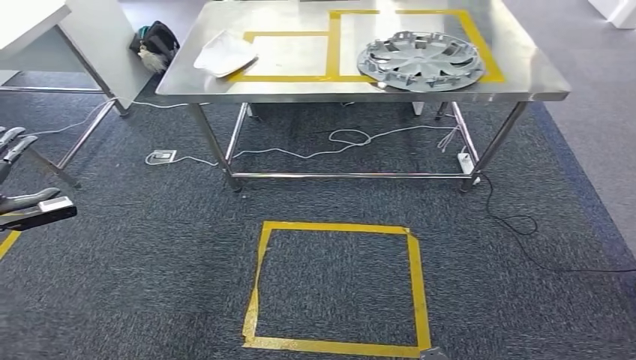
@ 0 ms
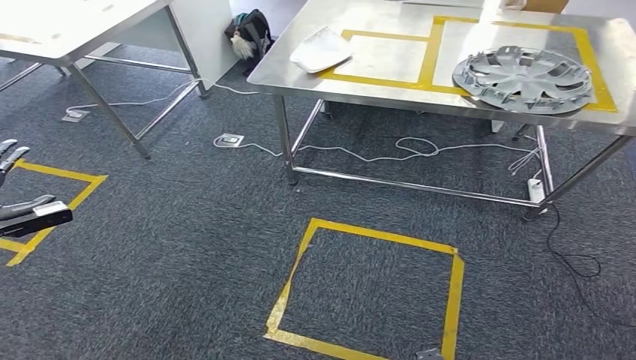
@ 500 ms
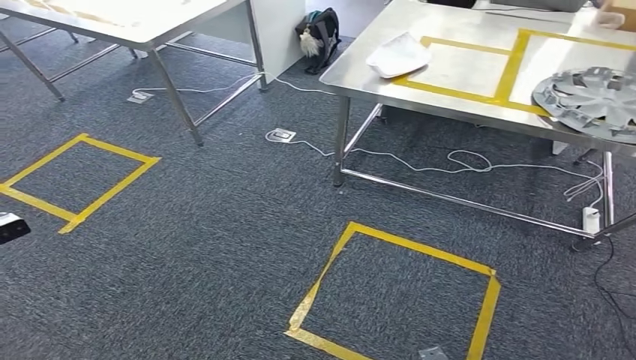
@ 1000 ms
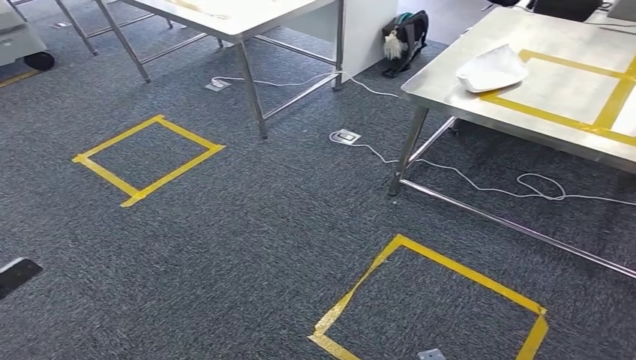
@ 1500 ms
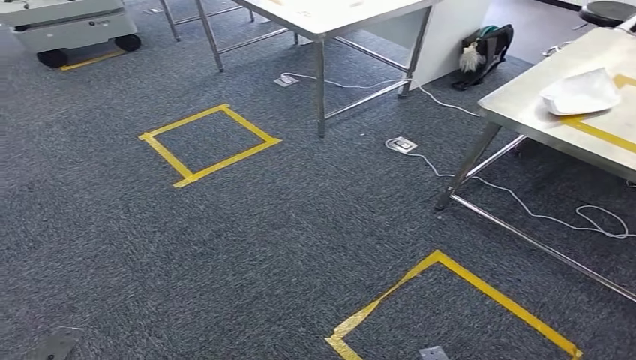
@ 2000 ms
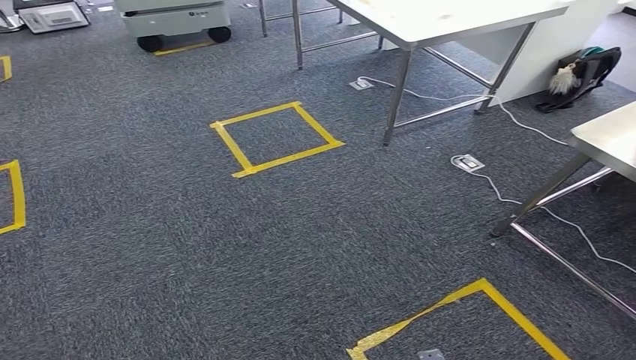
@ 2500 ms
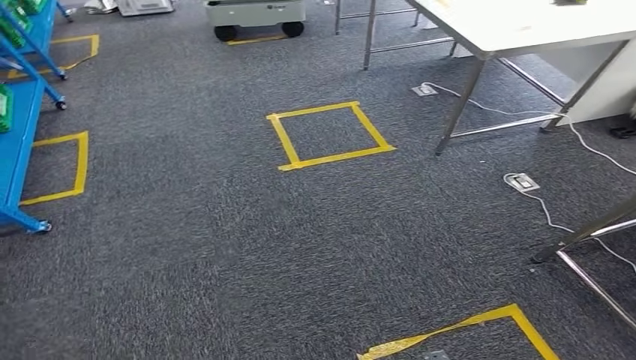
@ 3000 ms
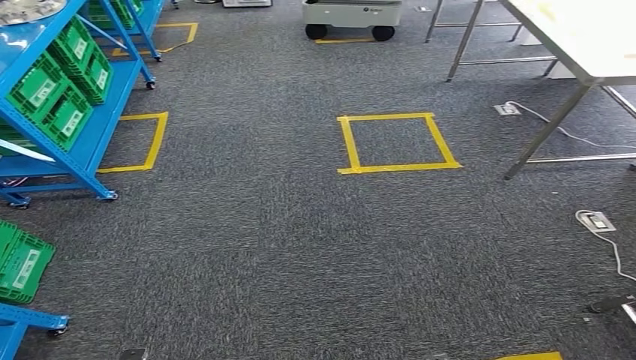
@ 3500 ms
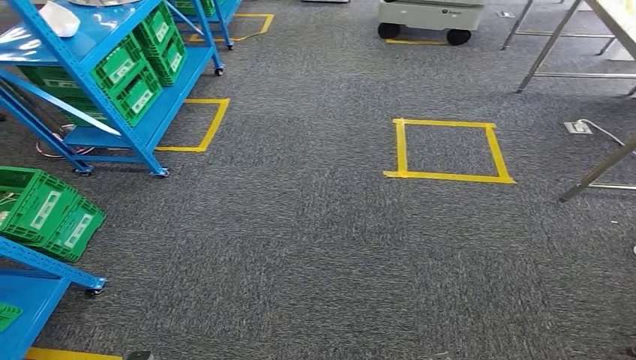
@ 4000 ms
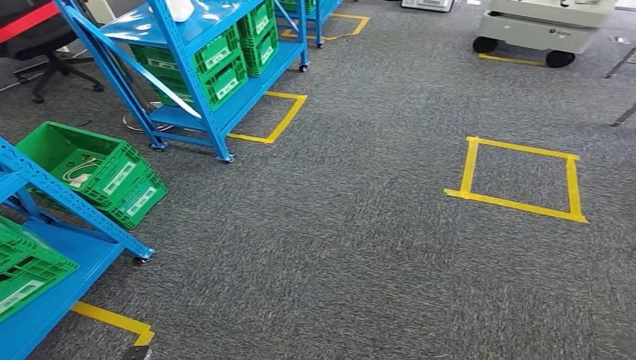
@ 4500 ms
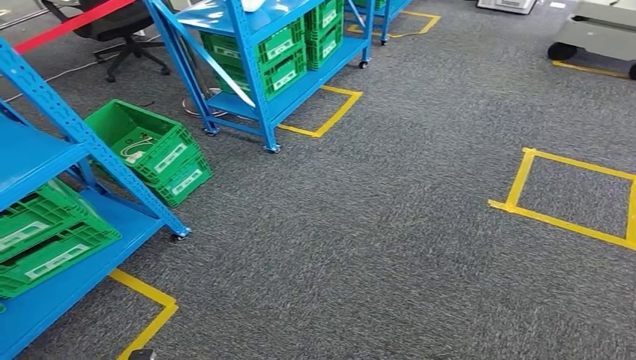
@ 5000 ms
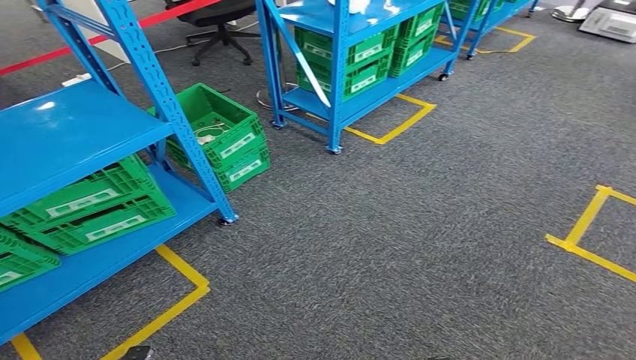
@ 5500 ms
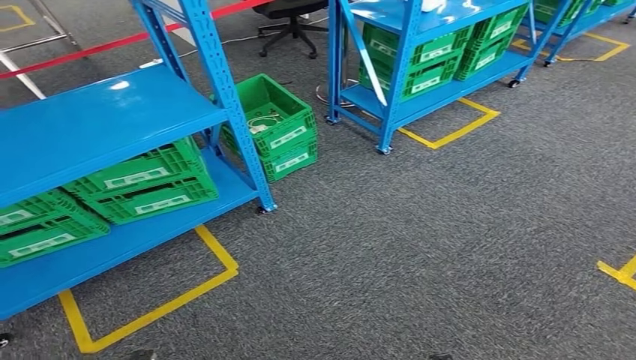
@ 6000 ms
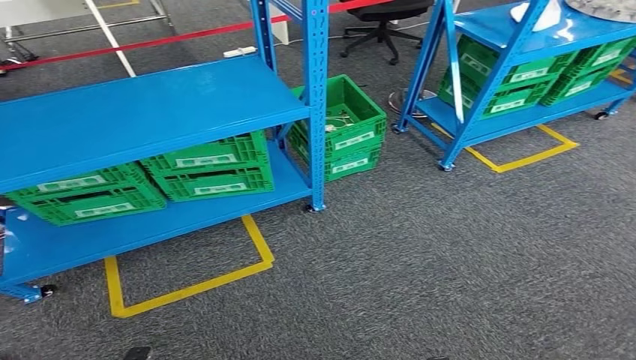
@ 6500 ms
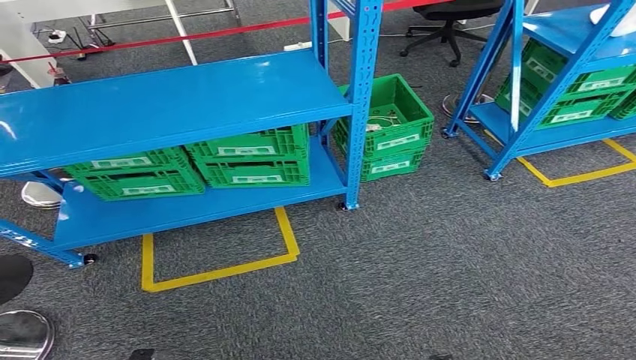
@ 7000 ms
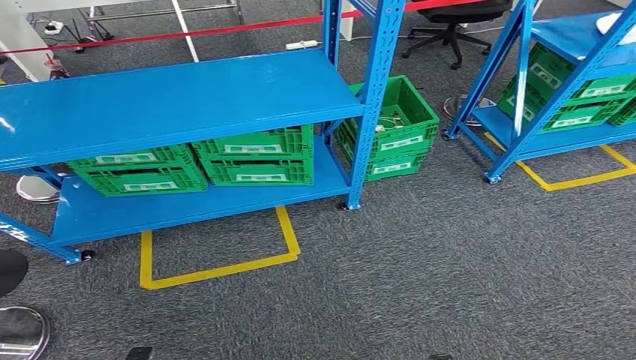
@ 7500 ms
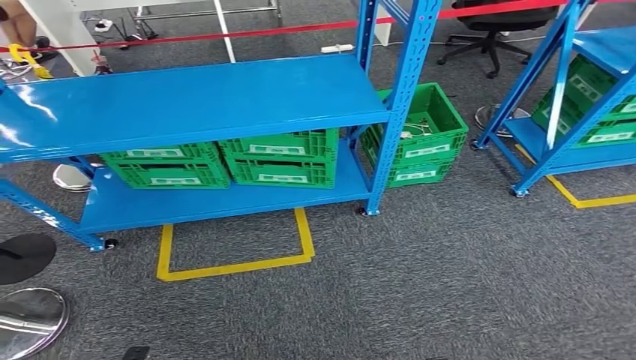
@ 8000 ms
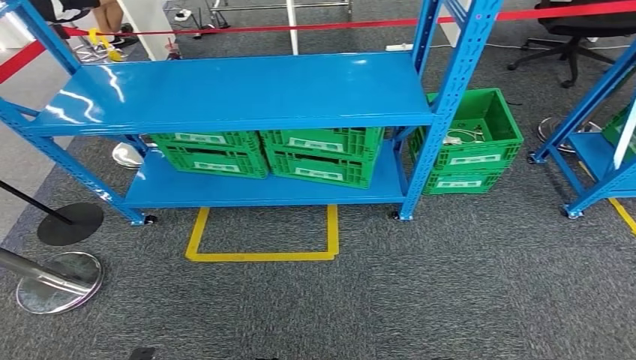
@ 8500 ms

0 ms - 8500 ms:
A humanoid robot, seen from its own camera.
Step, 0 ms - 8500 ms: Move to the initial position of the workbench.
